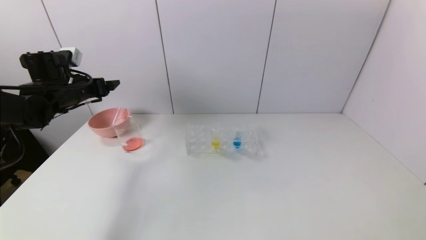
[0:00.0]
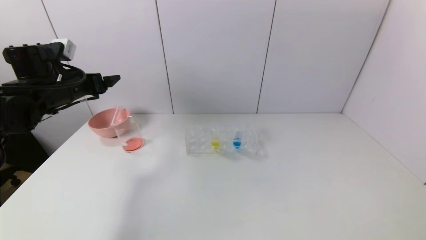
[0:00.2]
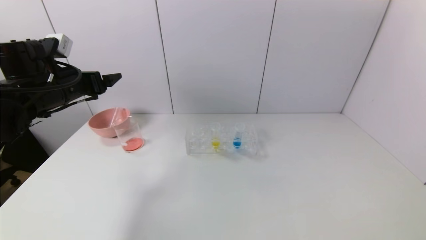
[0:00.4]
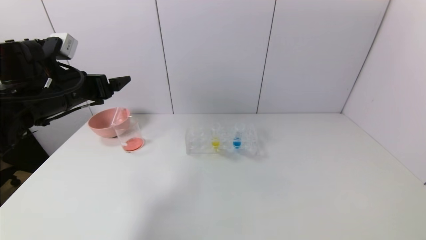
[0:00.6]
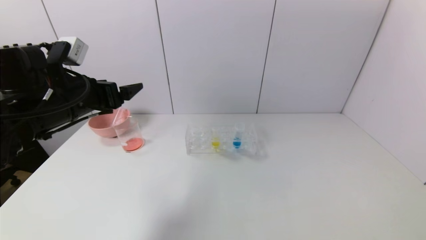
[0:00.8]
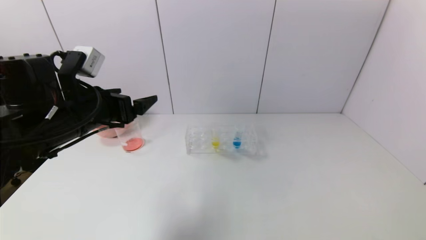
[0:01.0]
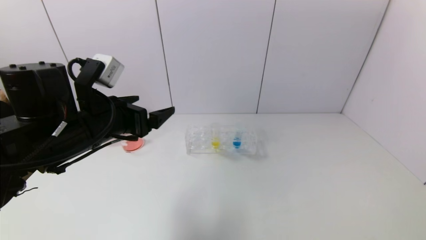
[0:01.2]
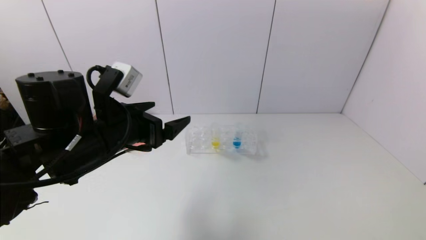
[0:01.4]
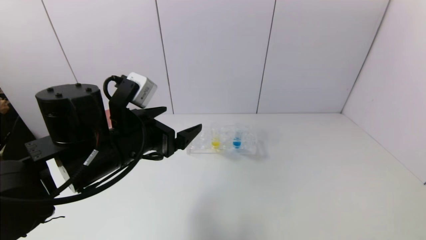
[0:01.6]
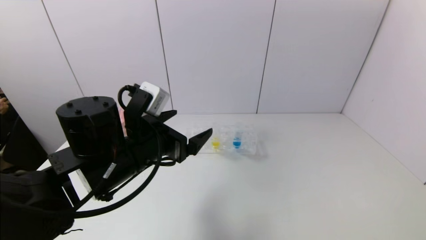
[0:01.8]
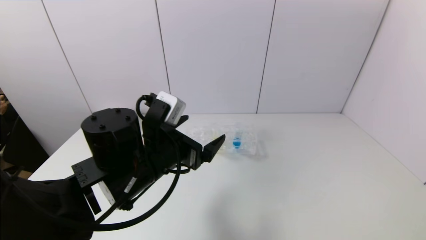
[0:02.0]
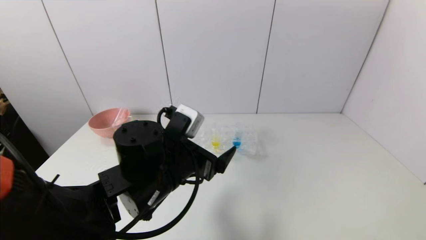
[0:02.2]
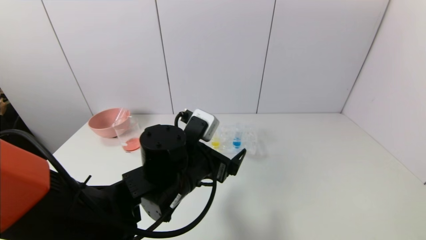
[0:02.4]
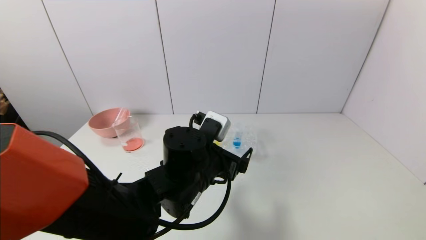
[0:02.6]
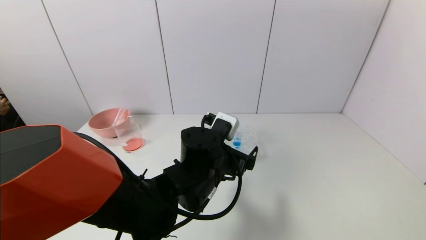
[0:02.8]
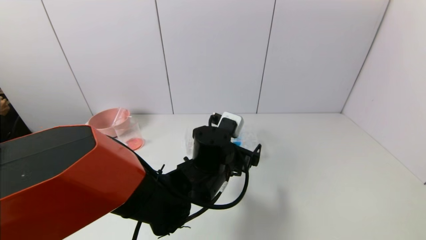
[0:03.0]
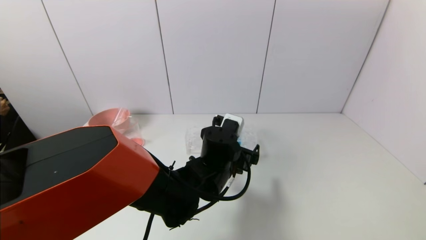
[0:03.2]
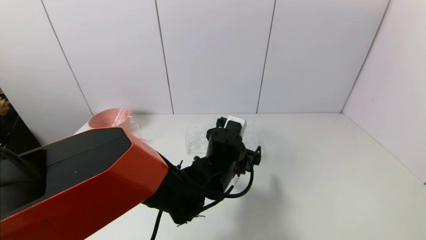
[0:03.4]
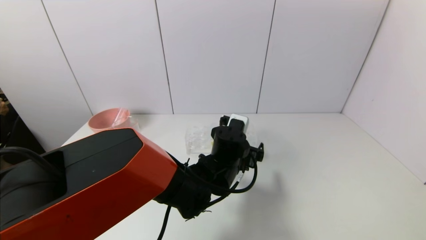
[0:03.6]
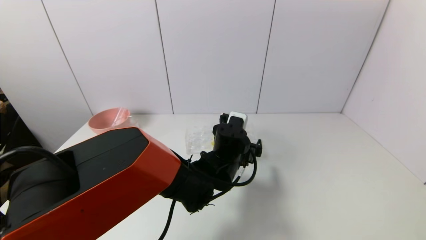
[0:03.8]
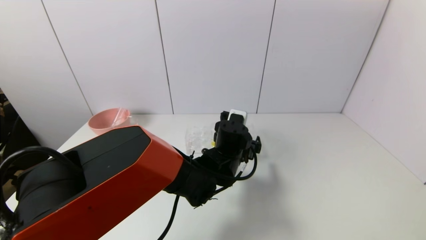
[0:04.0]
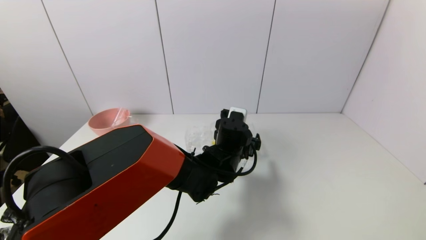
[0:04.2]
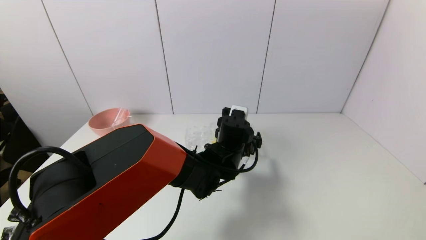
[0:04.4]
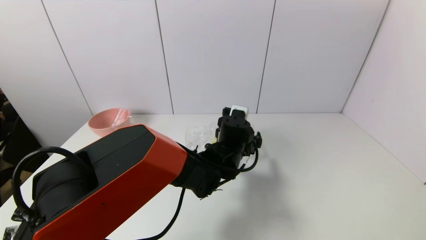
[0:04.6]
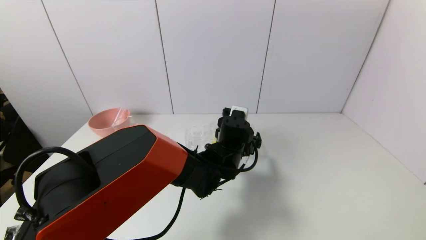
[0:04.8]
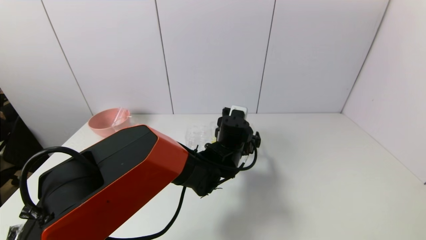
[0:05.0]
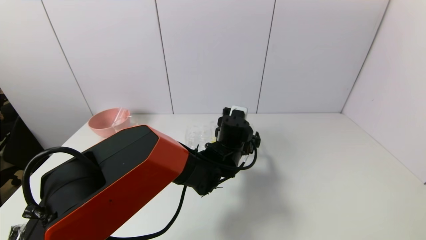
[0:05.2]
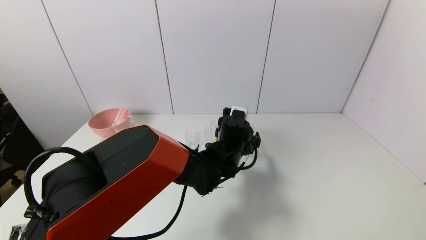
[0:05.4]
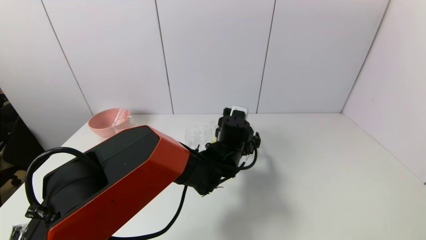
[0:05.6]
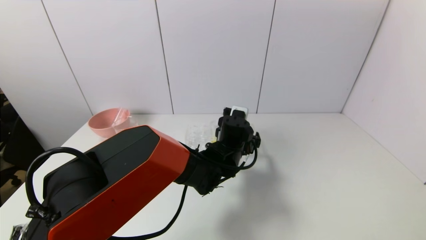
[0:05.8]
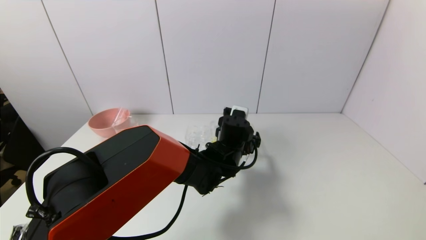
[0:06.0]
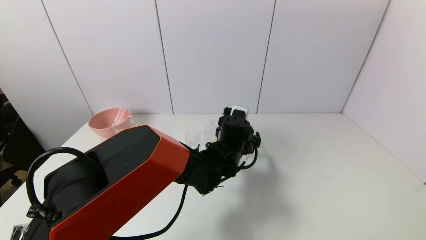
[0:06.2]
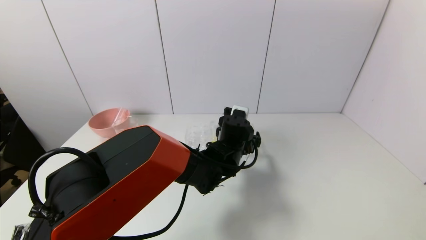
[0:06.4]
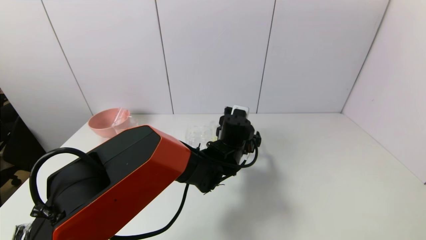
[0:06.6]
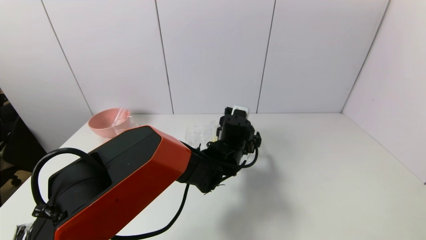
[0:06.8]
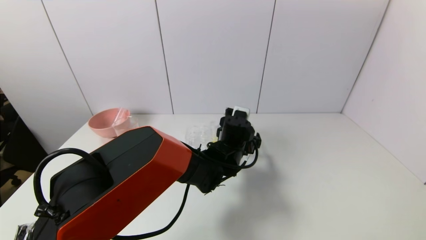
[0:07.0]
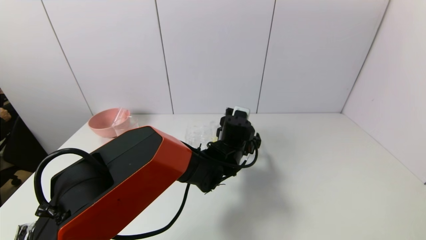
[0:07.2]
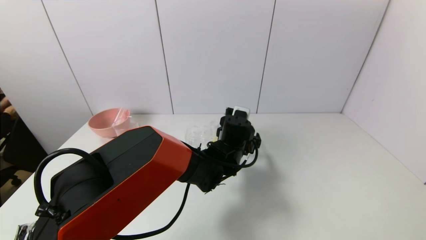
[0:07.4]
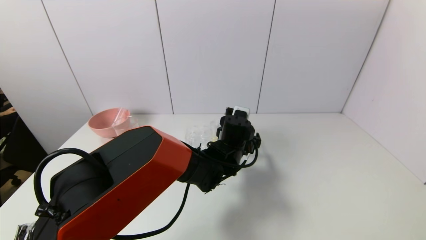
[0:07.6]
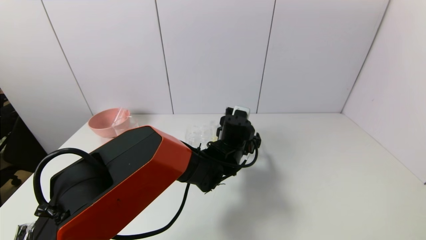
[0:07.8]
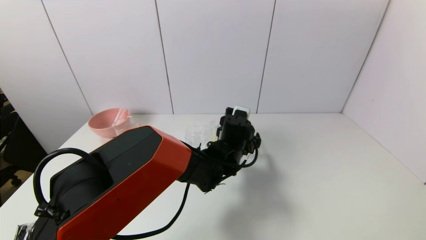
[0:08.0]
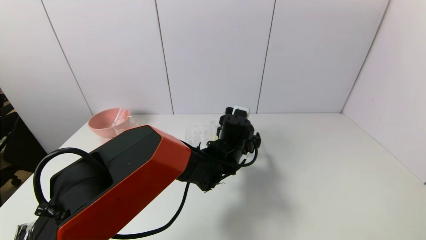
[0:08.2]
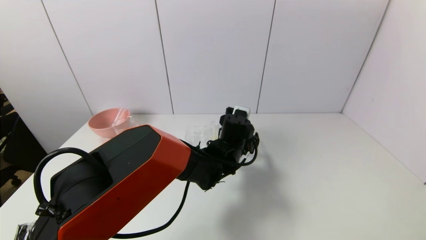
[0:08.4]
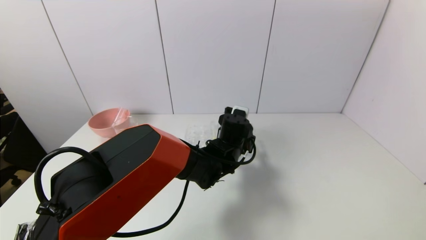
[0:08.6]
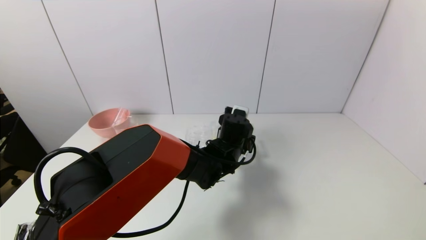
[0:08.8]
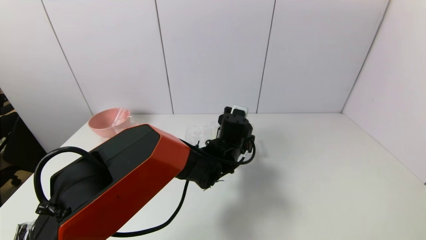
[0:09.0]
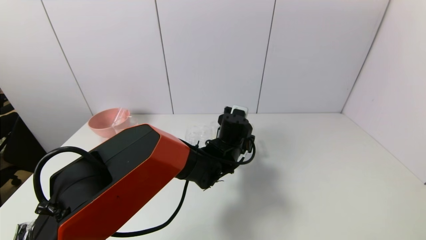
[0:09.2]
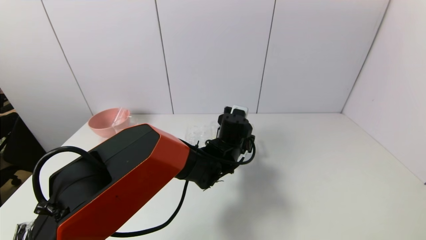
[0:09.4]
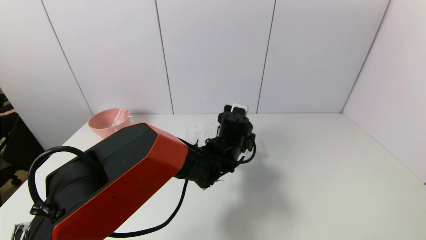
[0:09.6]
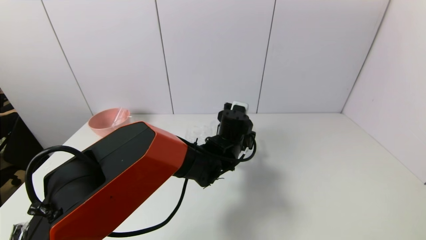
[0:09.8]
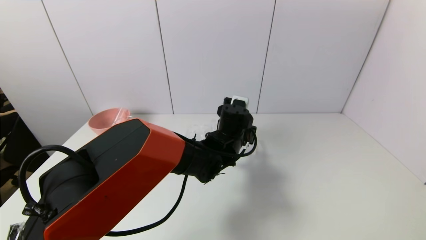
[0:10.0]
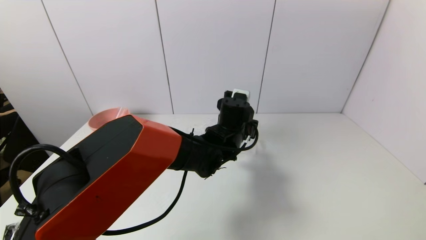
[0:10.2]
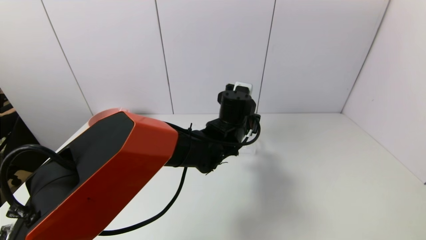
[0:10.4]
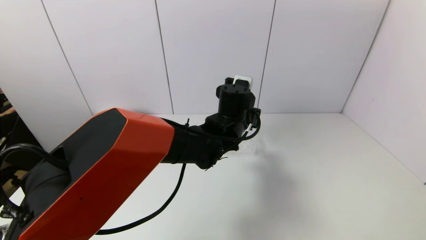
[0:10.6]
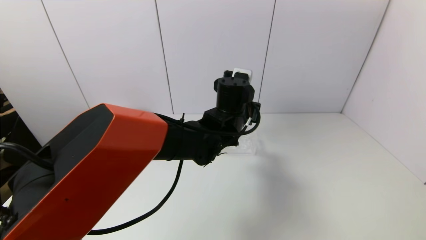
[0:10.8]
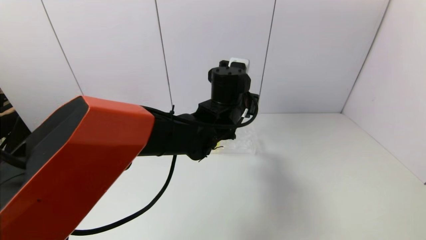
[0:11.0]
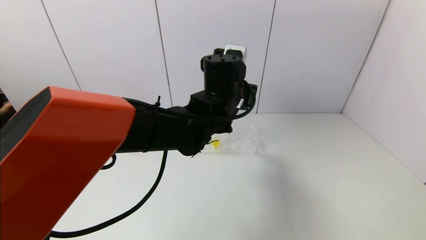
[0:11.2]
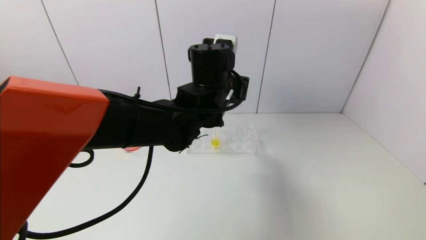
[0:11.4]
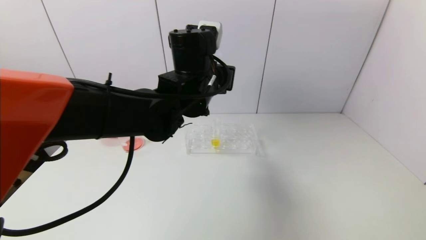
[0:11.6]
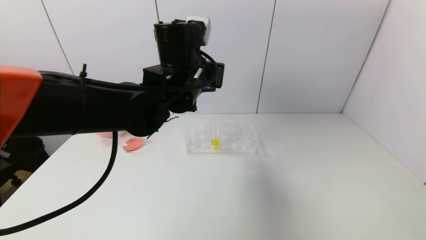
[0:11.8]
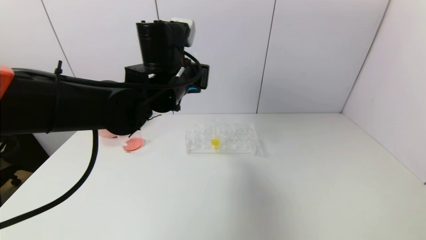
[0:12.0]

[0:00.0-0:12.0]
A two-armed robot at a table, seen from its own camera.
Task of the whole recording: pick up the test tube with red pigment and the test tube with blue pigment by grippers and pour them into the container.
Step, 0:00.2 to 0:09.2: Grasp the blue reagent with the left gripper.
0:00.0 to 0:01.6: The left gripper travels to the right and backward by about 25 cm.
0:01.6 to 0:03.0: The left gripper travels to the right and downward by about 15 cm.
0:03.0 to 0:04.4: The left gripper moves forward, approximately 5 cm.
0:04.4 to 0:06.0: Neither gripper changes place.
0:06.0 to 0:07.6: Both grippers stay put.
0:07.6 to 0:09.0: The left gripper closes.
0:09.0 to 0:10.4: The left gripper goes approximately 5 cm upward.
0:10.4 to 0:12.0: The left gripper moves to the left and upward, roughly 15 cm.

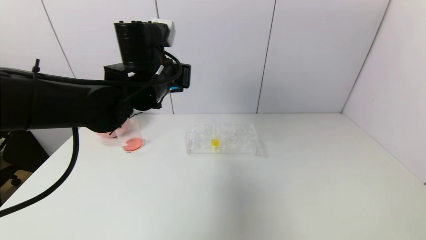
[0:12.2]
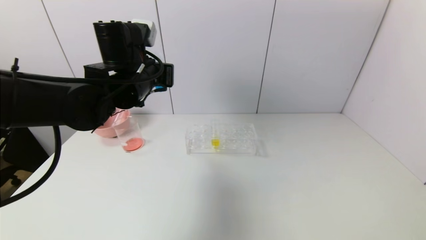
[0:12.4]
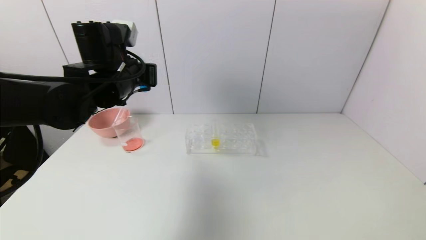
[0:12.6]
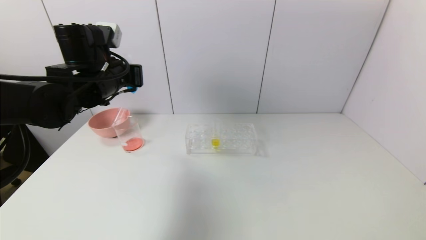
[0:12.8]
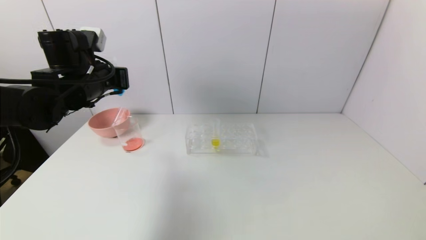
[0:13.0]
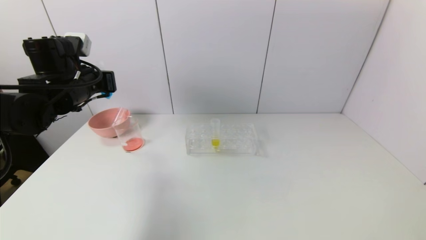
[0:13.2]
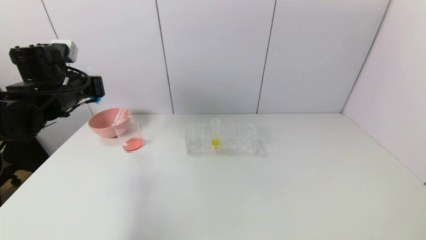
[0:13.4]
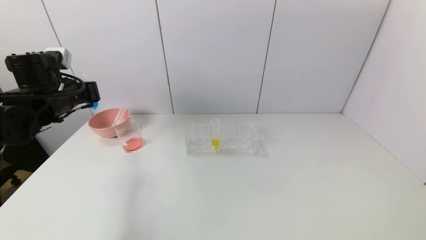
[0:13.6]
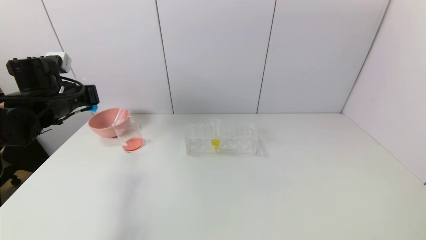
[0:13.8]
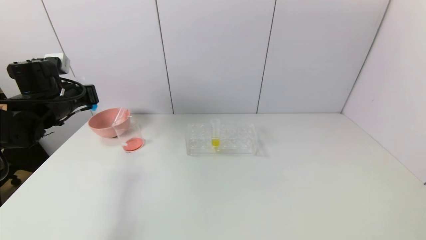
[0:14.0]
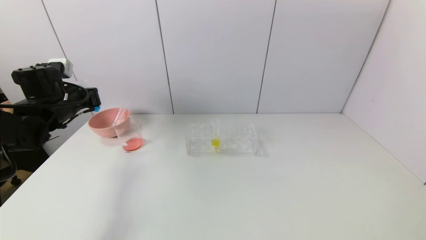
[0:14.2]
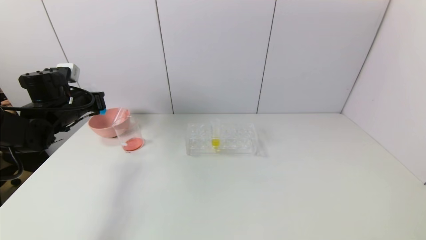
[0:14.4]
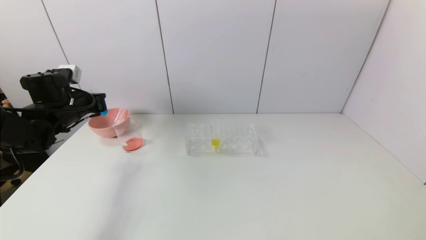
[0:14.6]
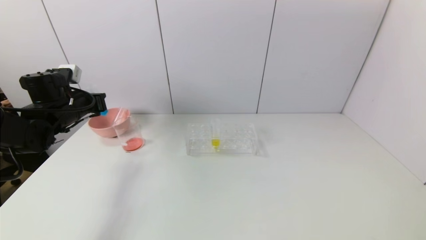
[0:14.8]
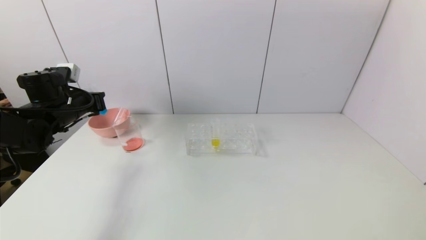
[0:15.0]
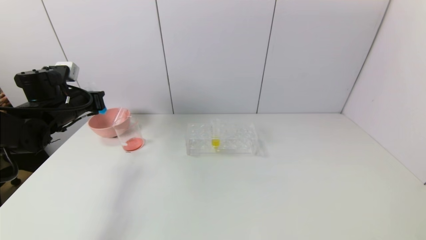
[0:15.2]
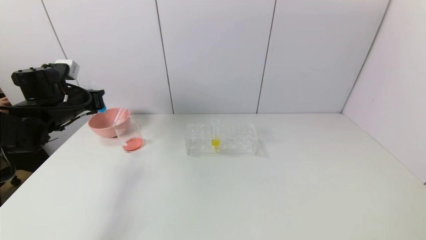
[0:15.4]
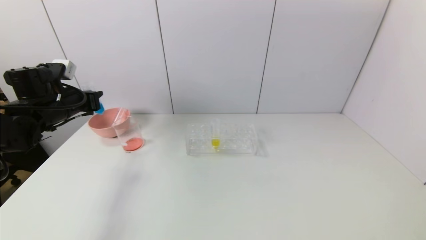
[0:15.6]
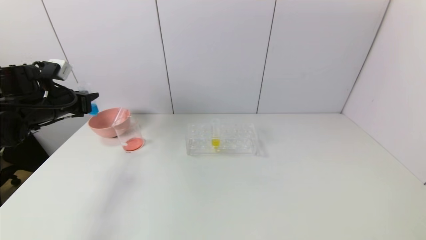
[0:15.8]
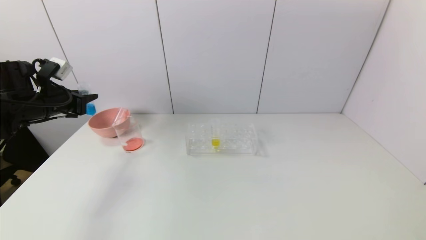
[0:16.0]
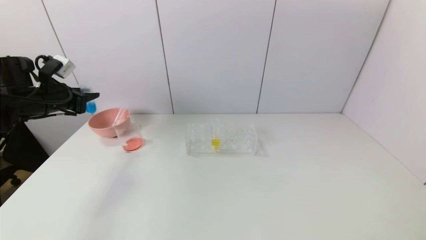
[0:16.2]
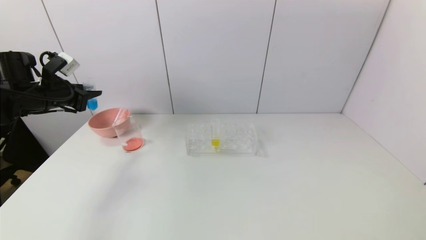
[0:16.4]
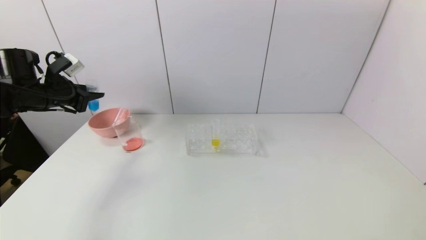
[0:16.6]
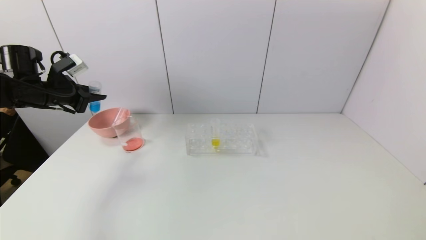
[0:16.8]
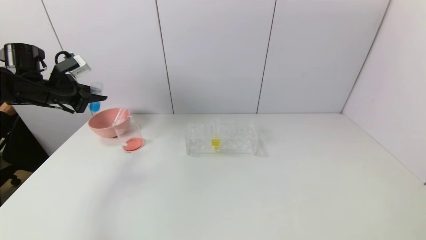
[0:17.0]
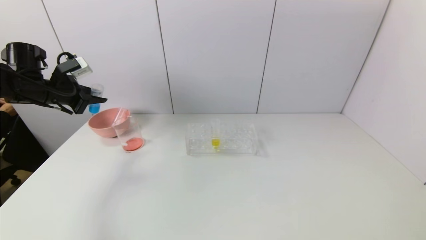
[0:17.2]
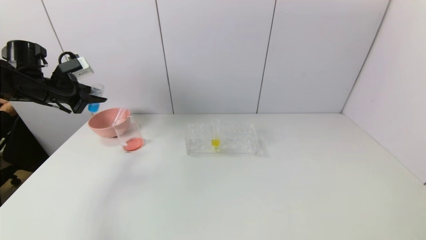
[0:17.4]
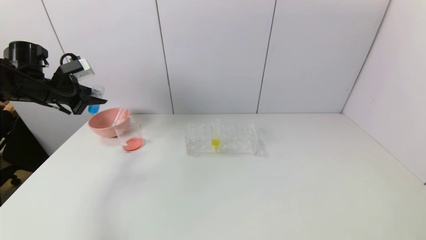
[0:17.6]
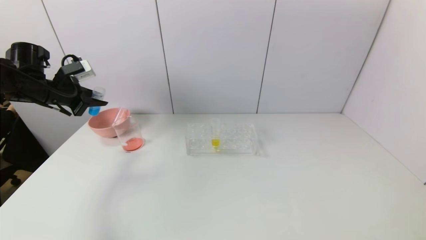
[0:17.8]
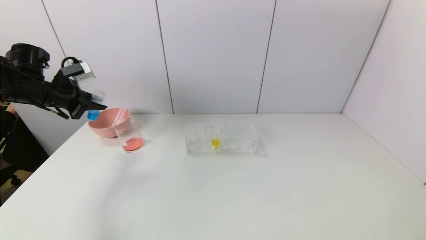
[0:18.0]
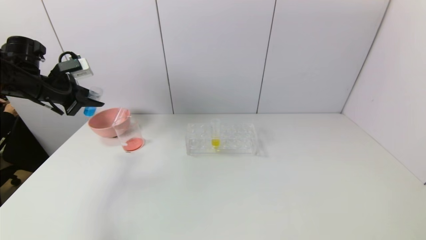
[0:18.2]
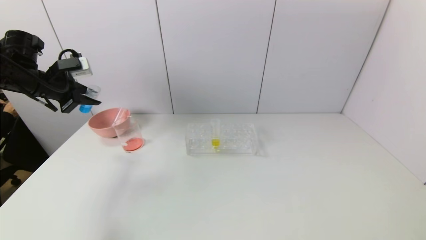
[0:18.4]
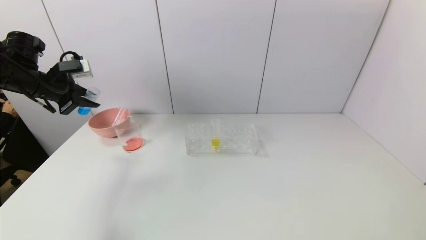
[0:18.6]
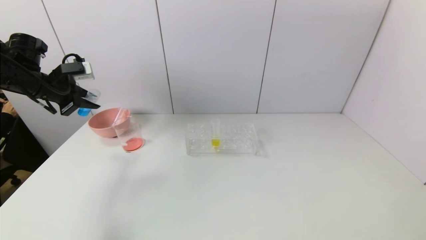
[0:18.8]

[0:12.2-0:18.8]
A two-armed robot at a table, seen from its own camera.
Task of the whole recording: pick up the test tube with red pigment and the test tube with blue pigment by grippers and pour them into the container.
0:12.2 to 0:13.8: The left gripper goes some 20 cm to the left.
0:13.8 to 0:15.4: The grippers stay close to where they were, moving slightly.
0:15.4 to 0:17.2: The left gripper heads to the left, covering some 5 cm.
0:17.2 to 0:18.8: The grippers move only a little.
